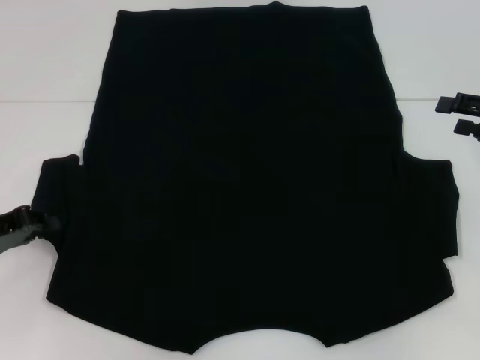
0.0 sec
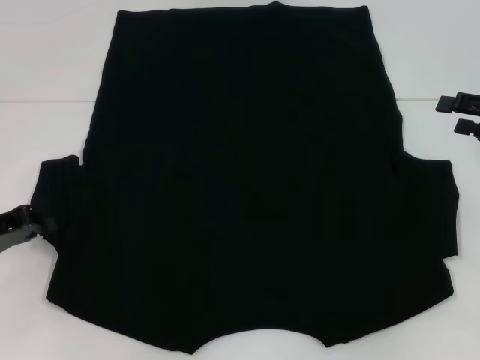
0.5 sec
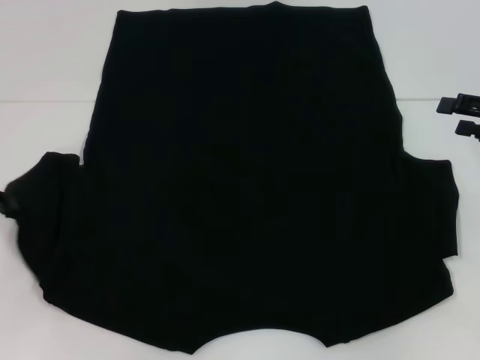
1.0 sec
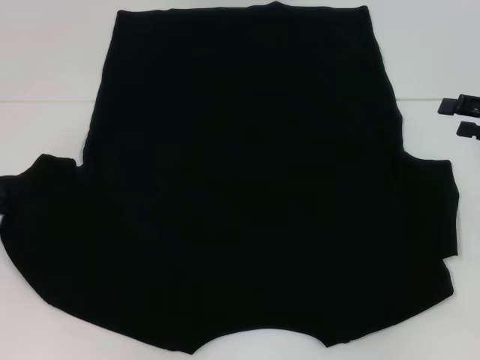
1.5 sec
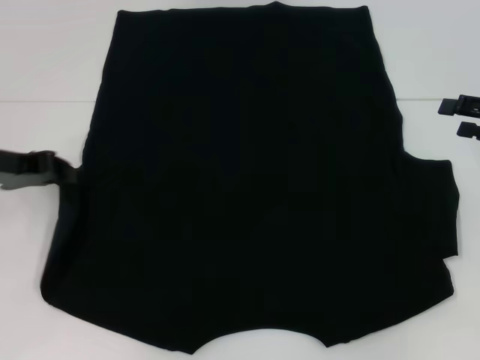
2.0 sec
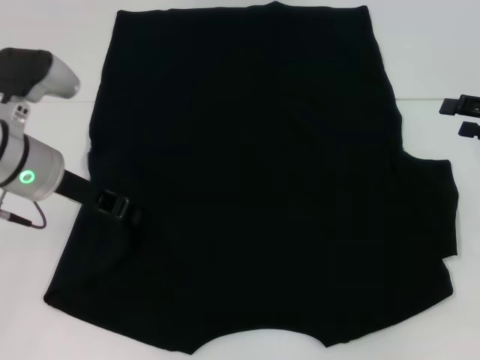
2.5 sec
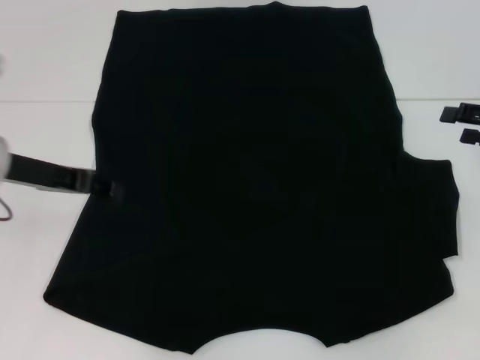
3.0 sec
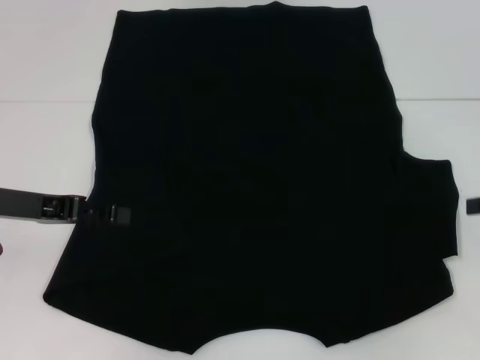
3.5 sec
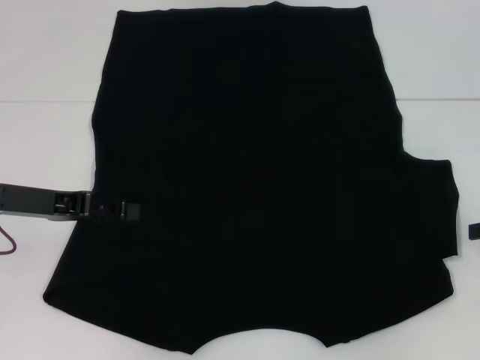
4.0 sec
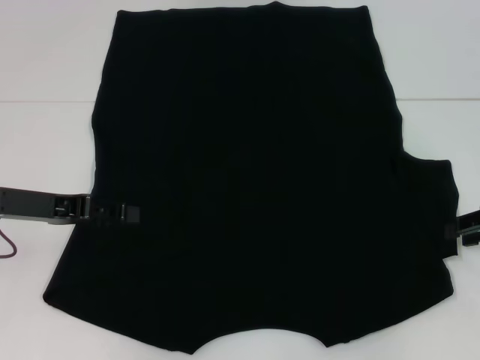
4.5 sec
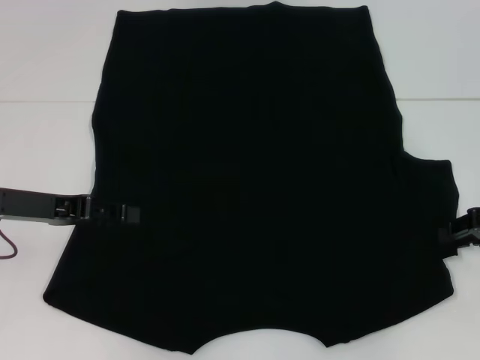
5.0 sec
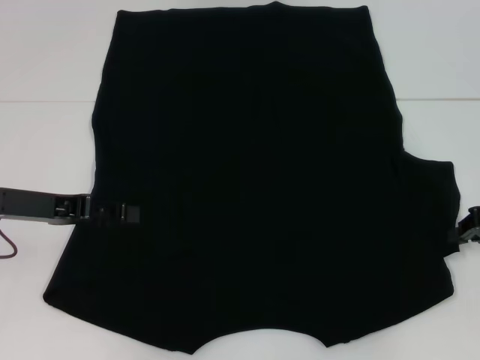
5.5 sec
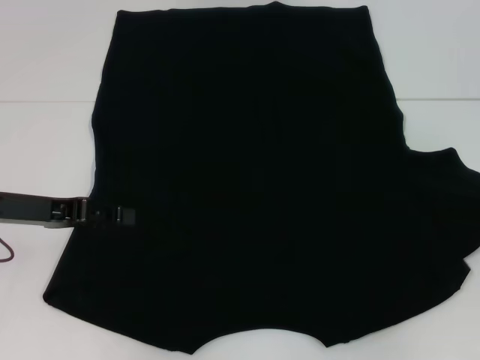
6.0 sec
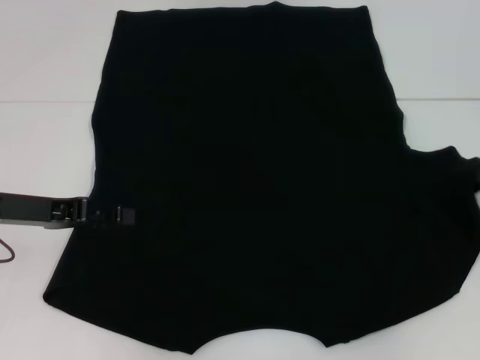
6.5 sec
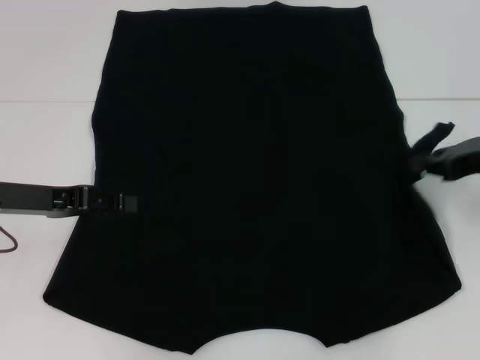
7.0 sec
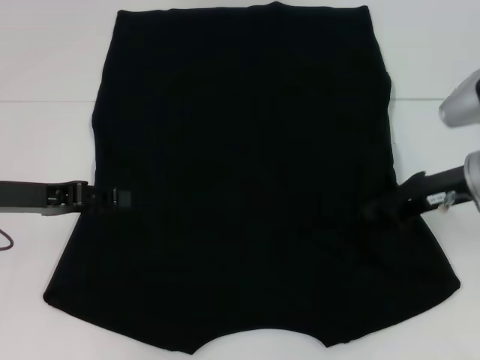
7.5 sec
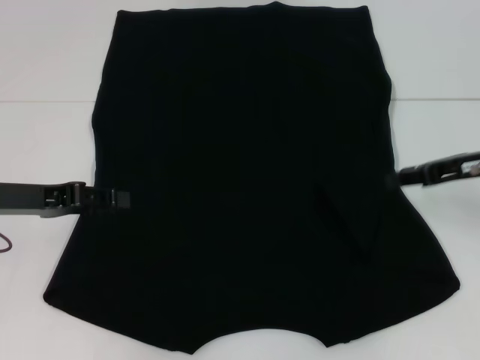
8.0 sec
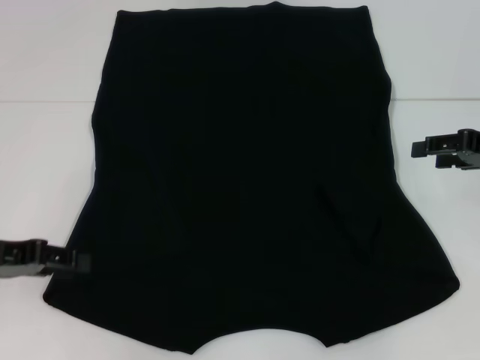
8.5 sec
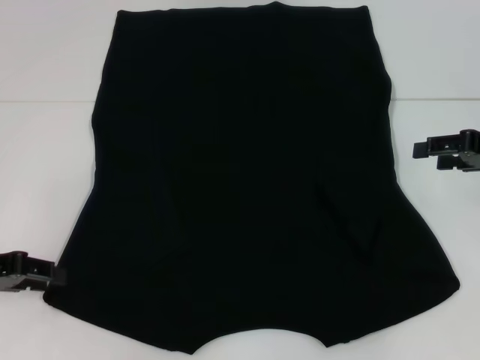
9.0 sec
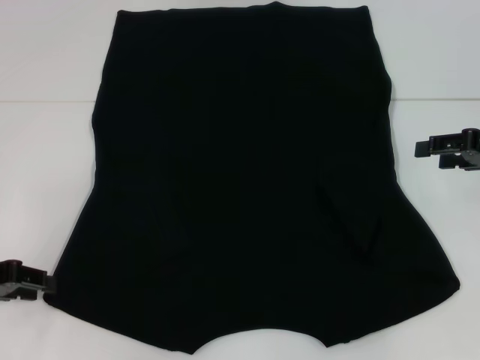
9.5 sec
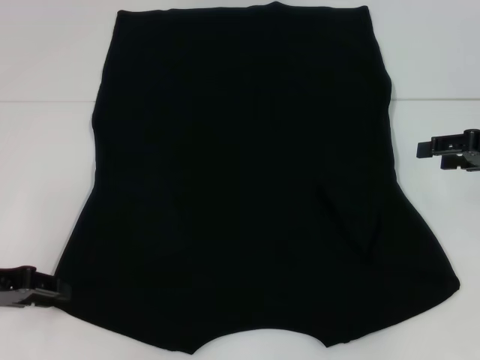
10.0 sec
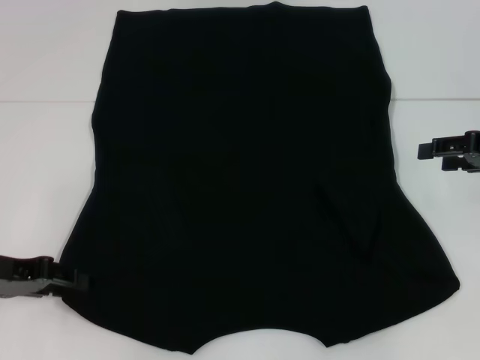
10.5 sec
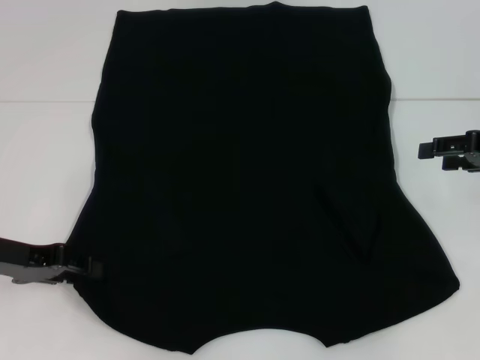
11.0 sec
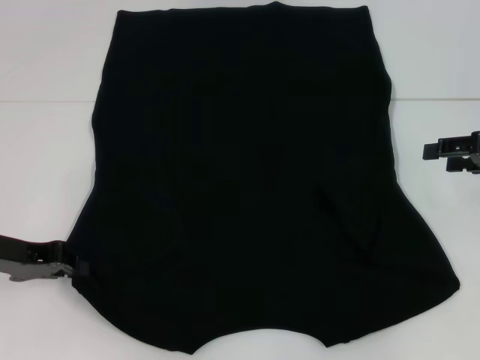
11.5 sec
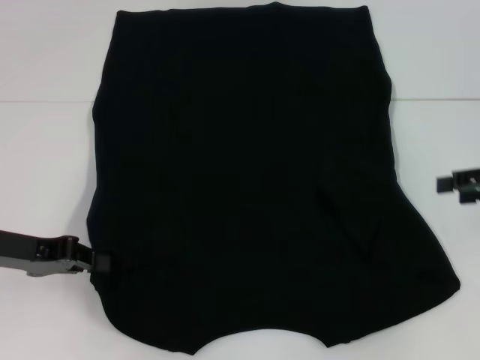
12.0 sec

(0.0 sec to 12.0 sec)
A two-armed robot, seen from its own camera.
Step, 0.0 sec - 3.0 sec: Fold the bottom left sleeve with your left hand.
Step, 3.5 sec - 7.5 sec: Fold the bottom right sleeve with your right hand.
0.0 sec - 2.0 sec: The left gripper shifts about 10 cm upward and forward, and closes.
2.0 sec - 4.0 sec: The left gripper travels to the right and back again, approximately 10 cm each way, and opens up.
4.0 sec - 6.0 sec: The right gripper closes up.
6.0 sec - 8.0 sec: The right gripper is displaced to the left by about 10 cm.
8.0 sec - 10.0 sec: The right gripper opens its fingers; the left gripper changes place by approximately 5 cm.
10.0 sec - 12.0 sec: The left gripper closes up.

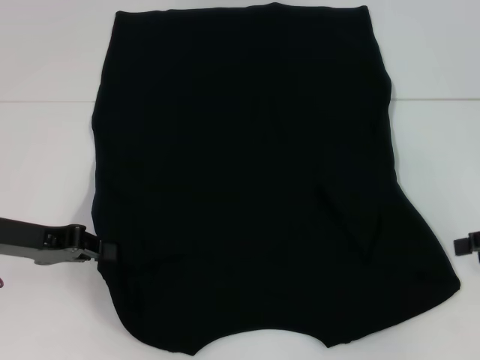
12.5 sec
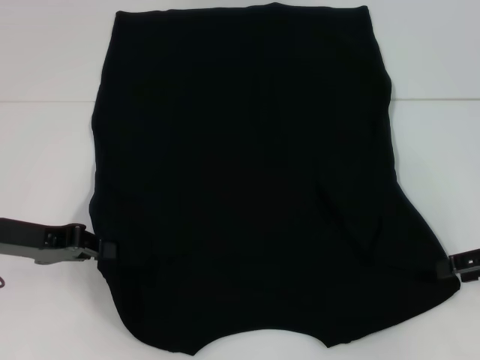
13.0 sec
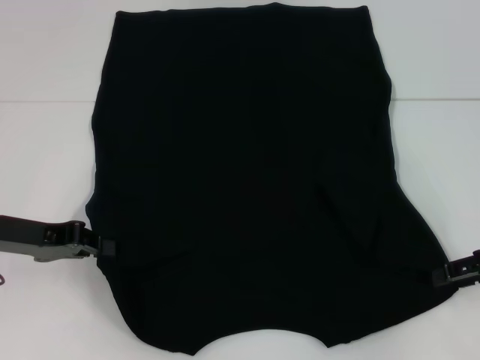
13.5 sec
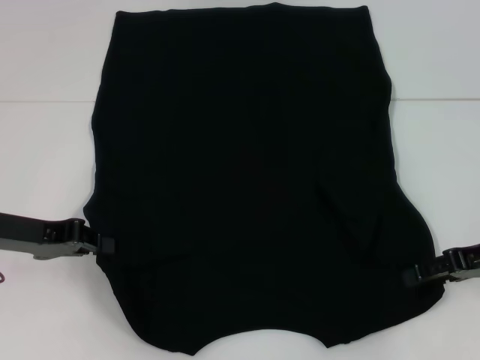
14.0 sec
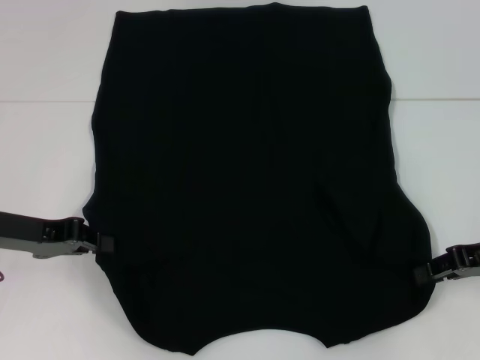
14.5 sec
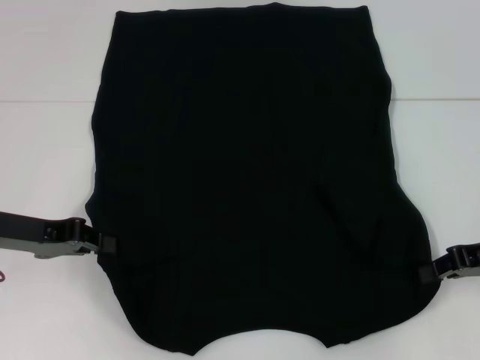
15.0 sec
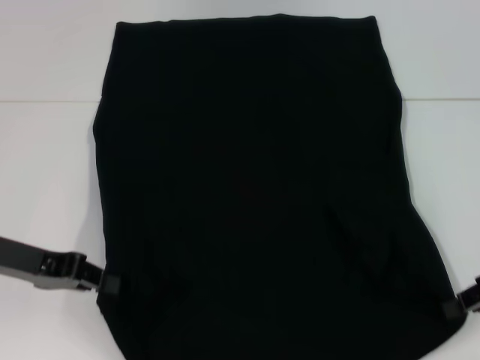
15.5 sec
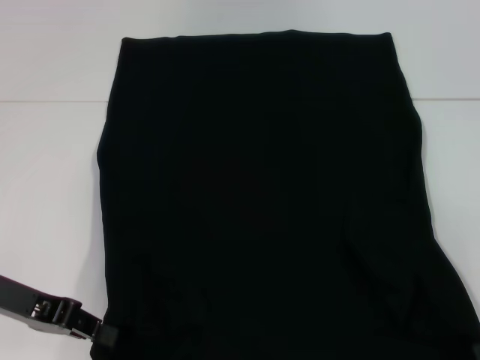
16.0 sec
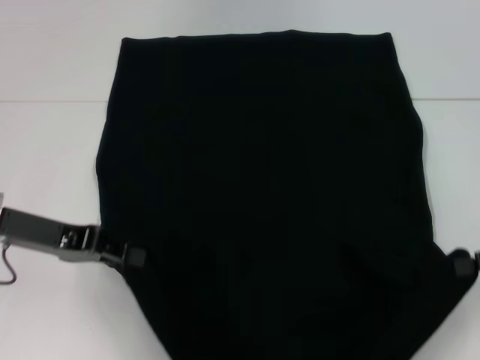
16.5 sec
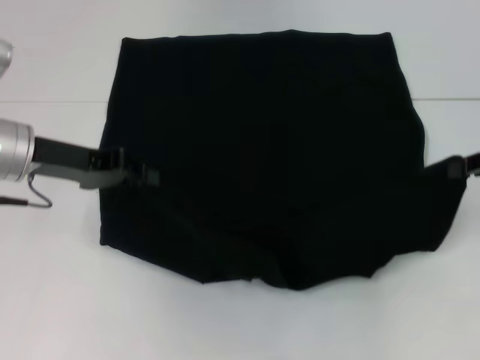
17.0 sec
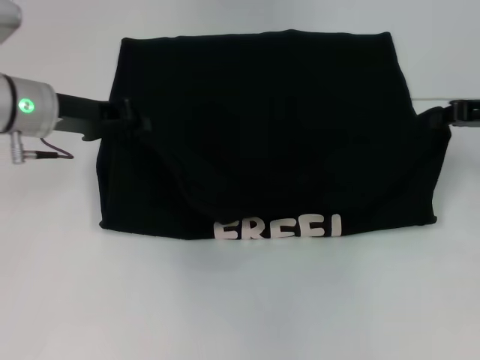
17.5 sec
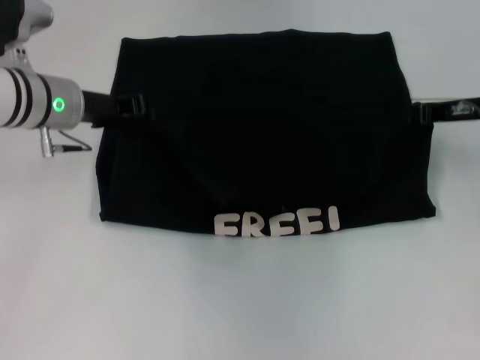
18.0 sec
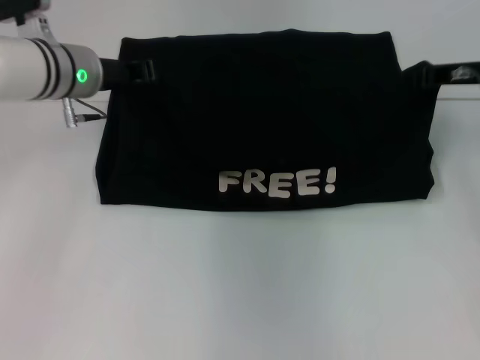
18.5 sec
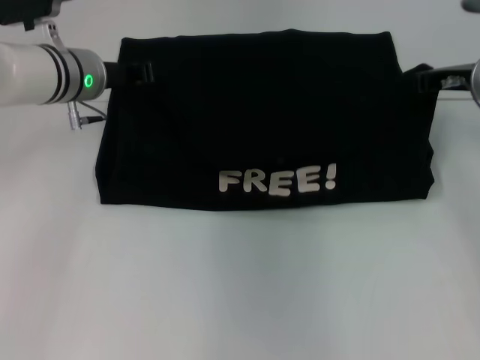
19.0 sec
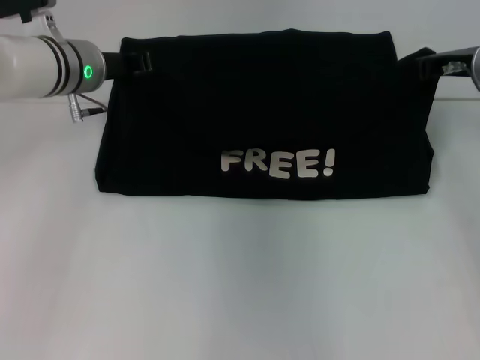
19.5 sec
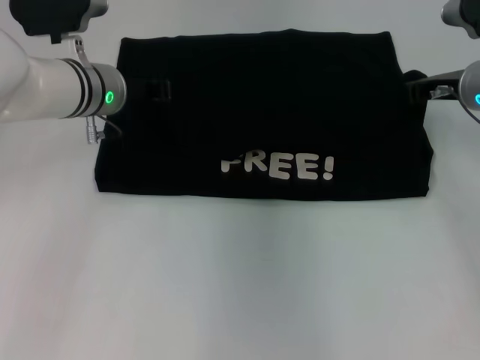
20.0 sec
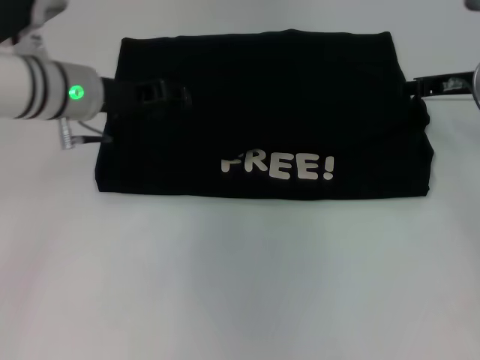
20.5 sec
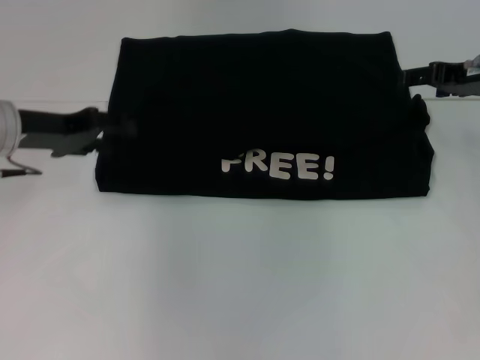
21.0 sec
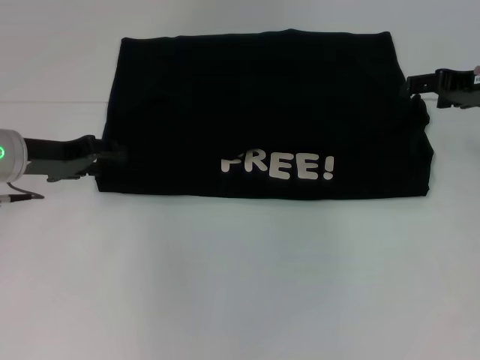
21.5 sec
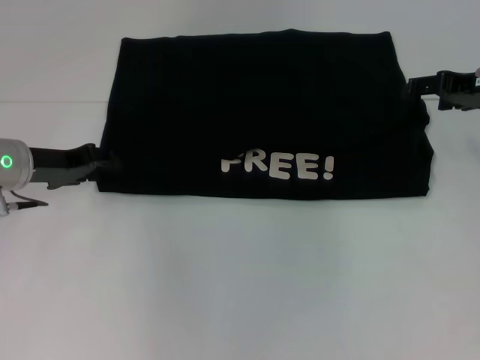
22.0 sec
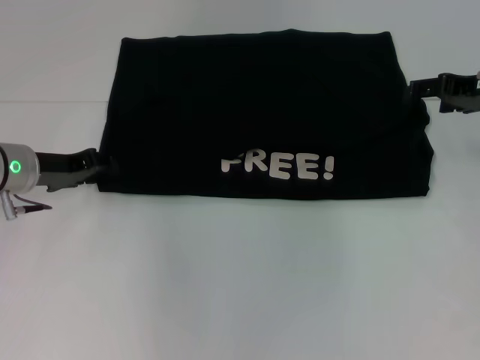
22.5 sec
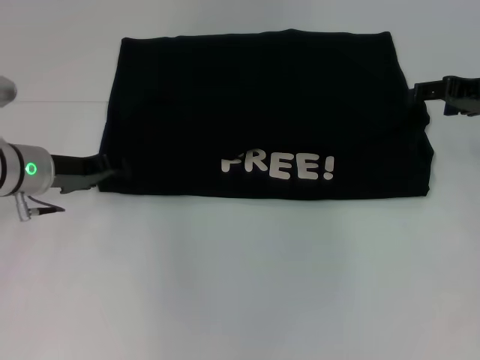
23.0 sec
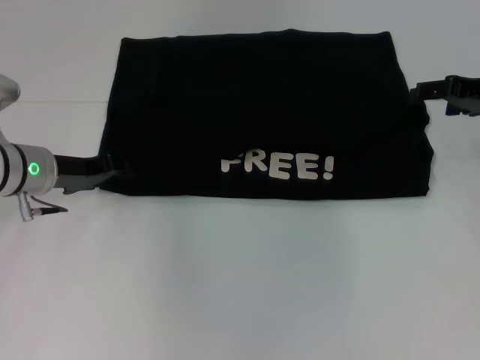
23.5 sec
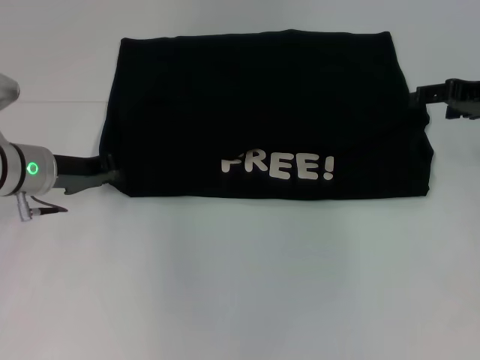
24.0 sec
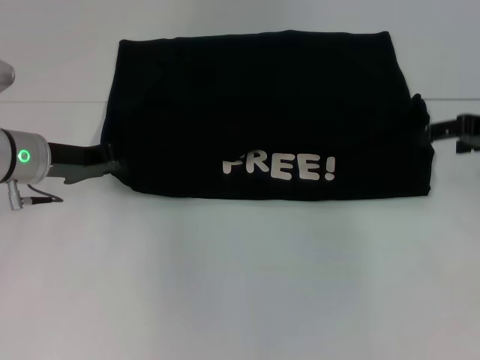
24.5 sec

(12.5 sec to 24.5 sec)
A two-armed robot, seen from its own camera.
Step, 12.5 sec - 15.0 sec: Grab the bottom right corner with your right hand.
Step, 15.5 sec - 20.5 sec: Fold the clothes with your left hand.
Step, 15.5 sec - 20.5 sec: Fold the clothes with your right hand.
12.5 sec - 14.5 sec: The right gripper moves to the left, roughly 5 cm.
14.5 sec - 16.5 sec: The right gripper moves approximately 5 cm, and closes its fingers.
16.5 sec - 18.5 sec: The left gripper travels forward and to the right by approximately 15 cm, while the right gripper shifts about 20 cm forward and to the left.
18.5 sec - 20.5 sec: The grippers make only small movements.
20.5 sec - 22.5 sec: The right gripper opens. The left gripper is displaced downward and to the left by roughly 10 cm.
22.5 sec - 24.5 sec: The left gripper closes.

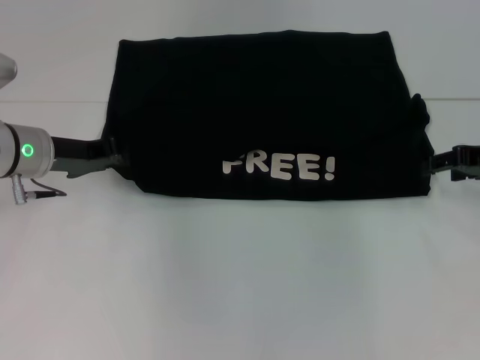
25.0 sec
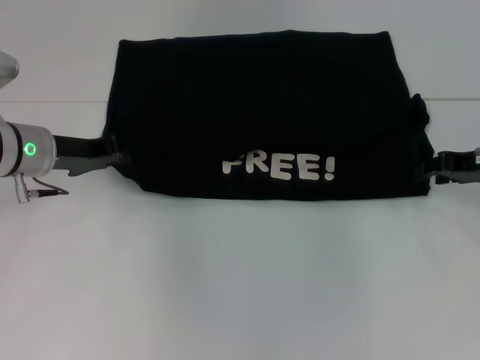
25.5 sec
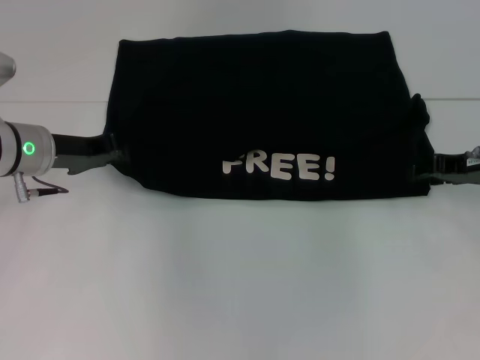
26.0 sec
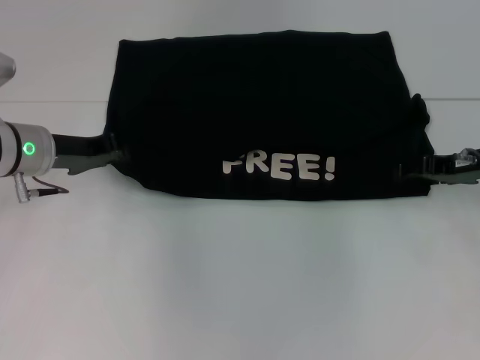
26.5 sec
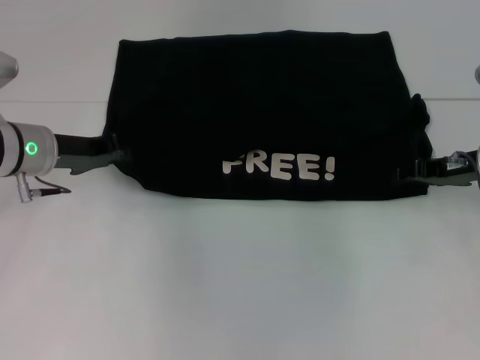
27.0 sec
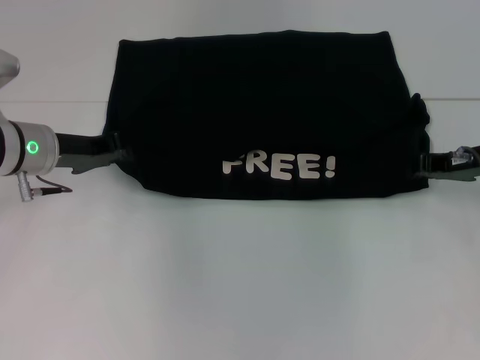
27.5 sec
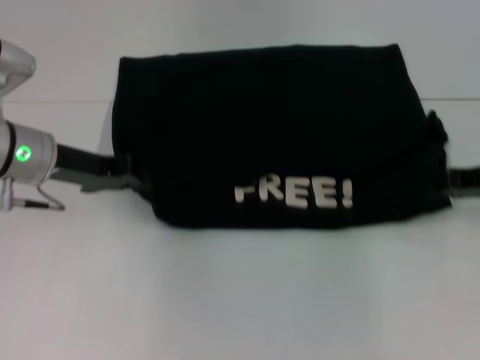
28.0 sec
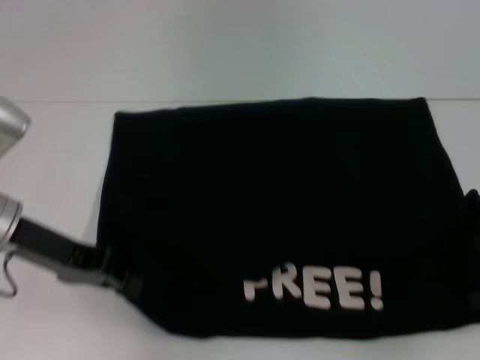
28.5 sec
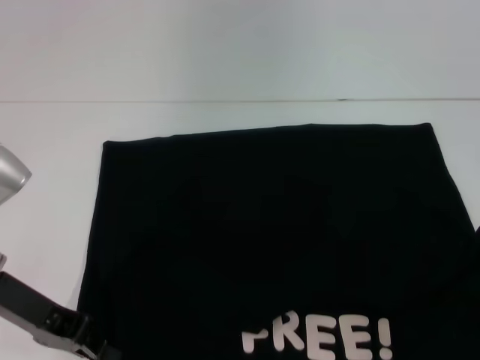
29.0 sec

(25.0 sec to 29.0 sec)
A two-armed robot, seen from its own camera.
Step, 25.0 sec - 28.5 sec: Pull the clothes with your left hand.
Step, 25.0 sec - 28.5 sec: Pull the clothes with your right hand.
25.0 sec - 27.0 sec: The right gripper ends up roughly 5 cm from where it was.
27.0 sec - 29.0 sec: The left gripper travels backward by about 10 cm; the right gripper travels backward and to the right by roughly 15 cm, and closes up.
